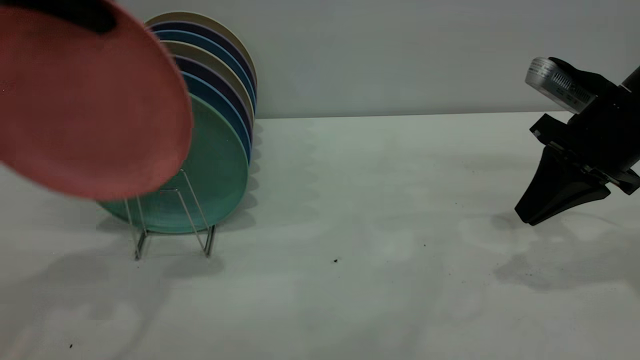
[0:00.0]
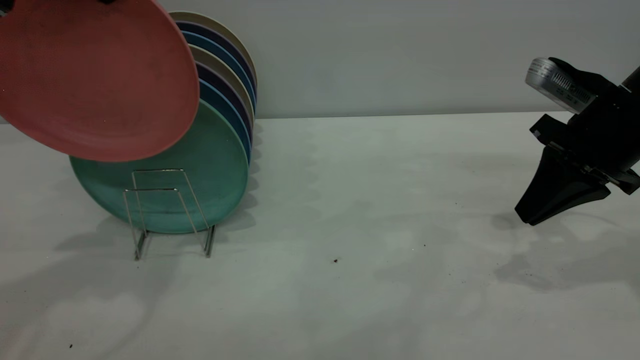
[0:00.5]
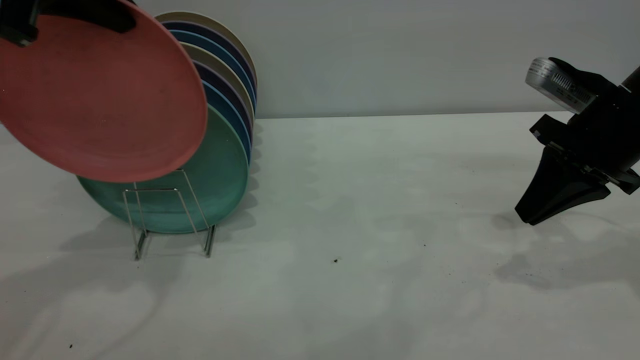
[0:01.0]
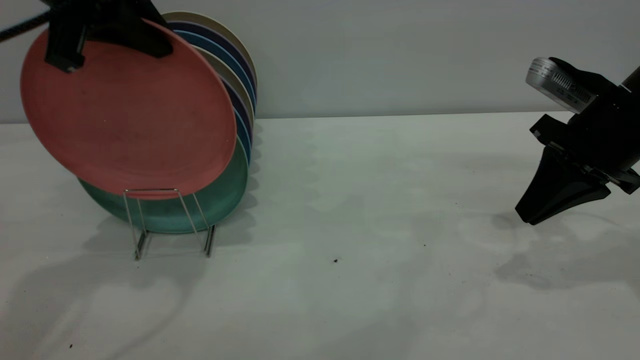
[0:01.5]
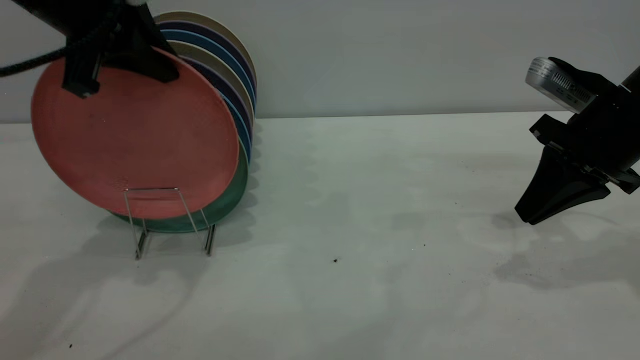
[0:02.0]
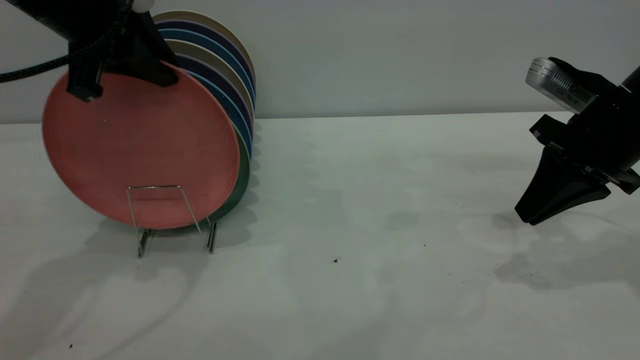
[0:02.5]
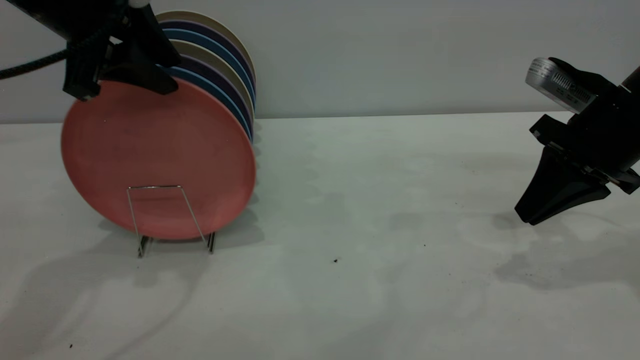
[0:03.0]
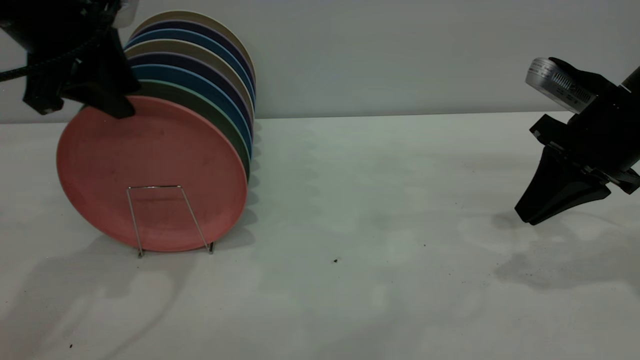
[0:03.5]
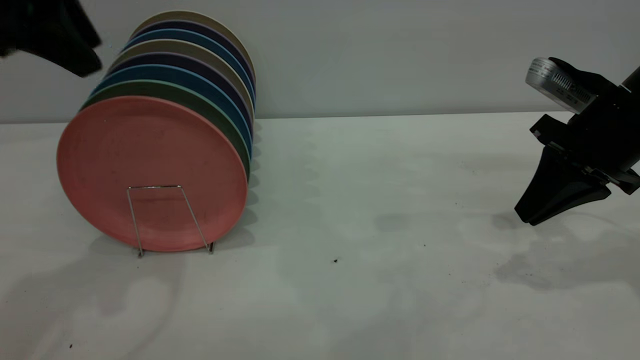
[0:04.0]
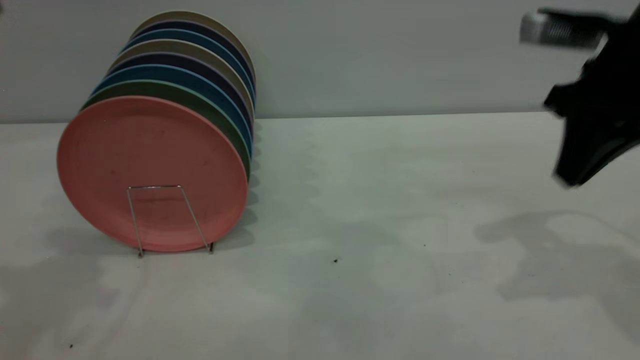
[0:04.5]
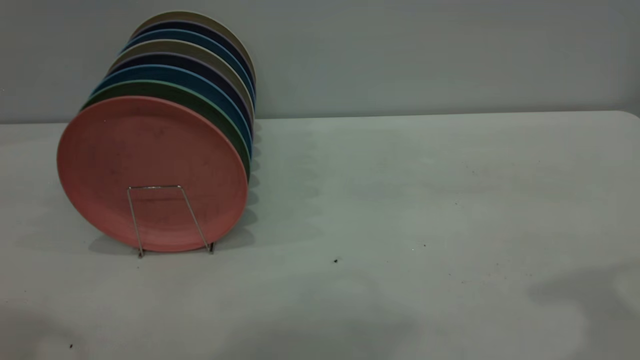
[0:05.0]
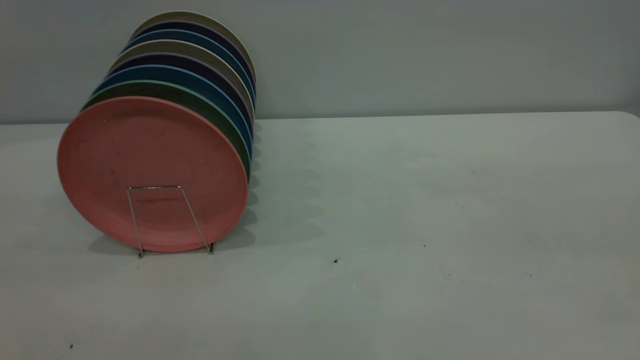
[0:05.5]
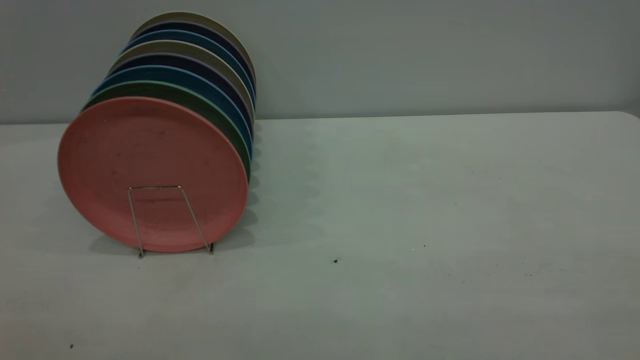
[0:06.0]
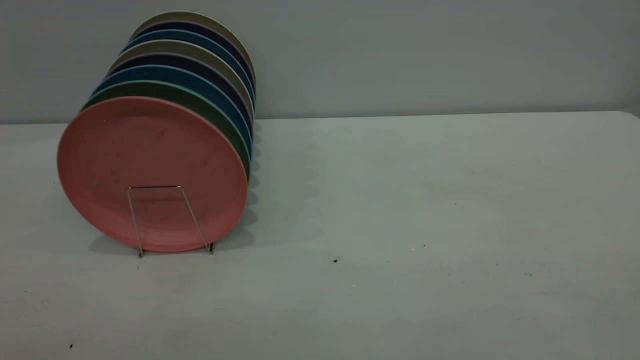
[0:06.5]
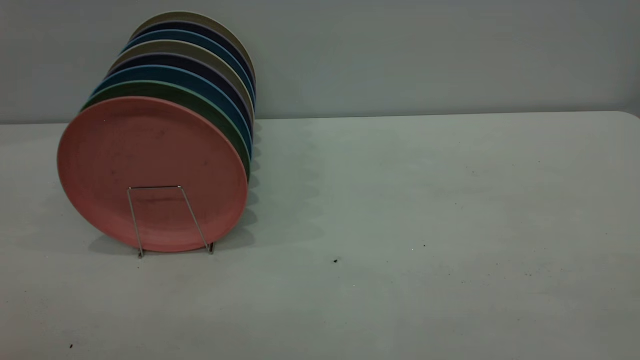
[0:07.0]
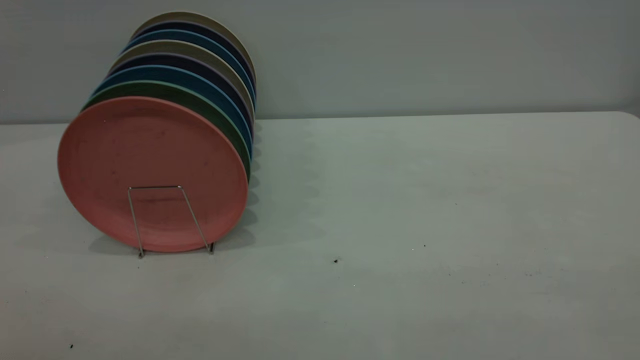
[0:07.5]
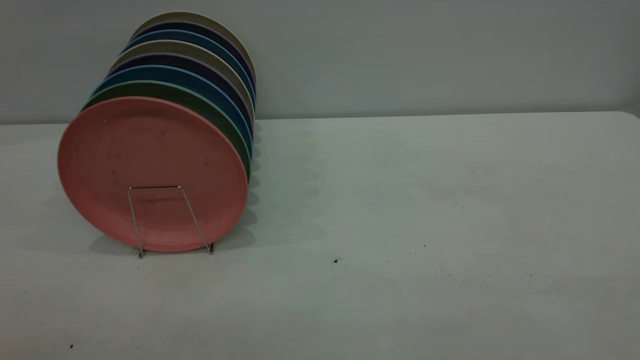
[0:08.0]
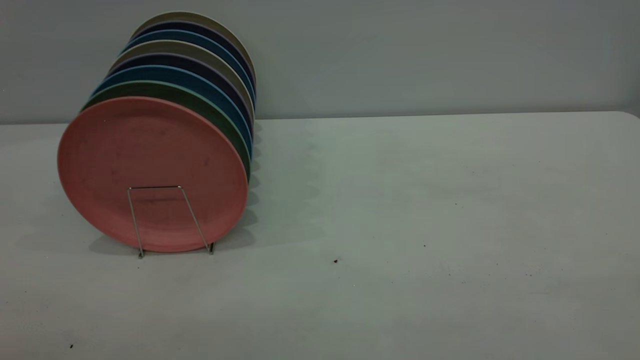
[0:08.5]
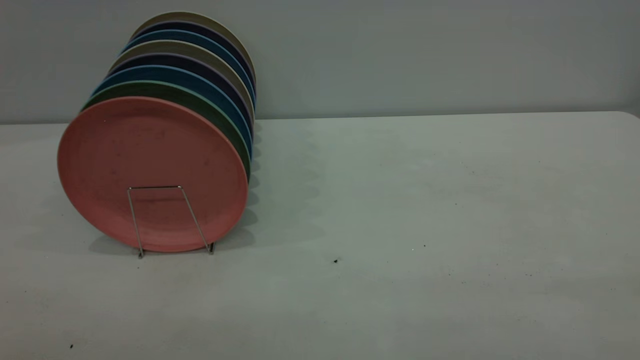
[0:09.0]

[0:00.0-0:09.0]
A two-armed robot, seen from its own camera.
Task of the whole recording: the right gripper grasp the pink plate, the right gripper pass the pink plate to the left gripper, and the left gripper place the pink plate on the plate rack.
Step, 0:00.0 to 0:03.5: Place the plate on the shelf.
0:00.0 to 0:02.0: The left gripper is displaced downward by approximately 5 cm.
0:02.0 to 0:04.5: The right gripper goes roughly 10 cm upward. The left gripper heads upward and backward, covering some 15 cm, and opens its fingers.
0:04.5 to 0:07.0: The right gripper is displaced backward by about 35 cm, and opens up.
